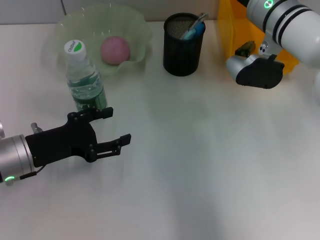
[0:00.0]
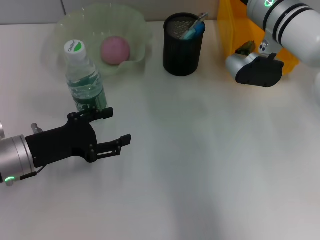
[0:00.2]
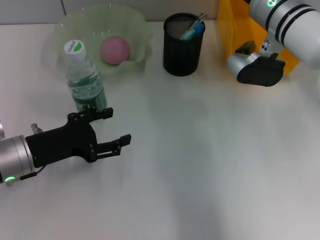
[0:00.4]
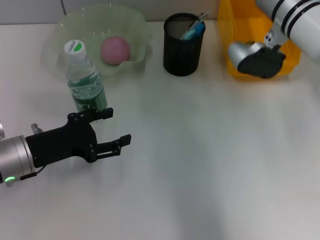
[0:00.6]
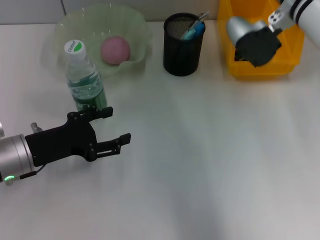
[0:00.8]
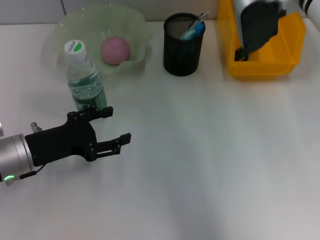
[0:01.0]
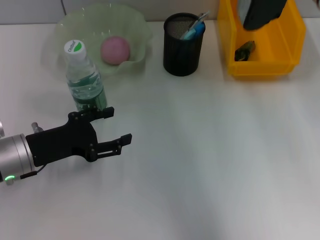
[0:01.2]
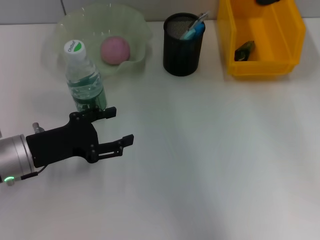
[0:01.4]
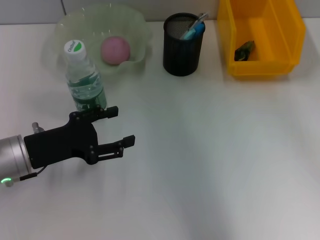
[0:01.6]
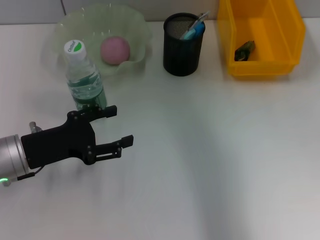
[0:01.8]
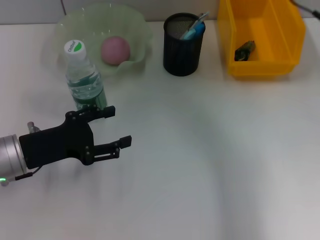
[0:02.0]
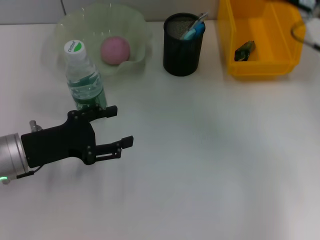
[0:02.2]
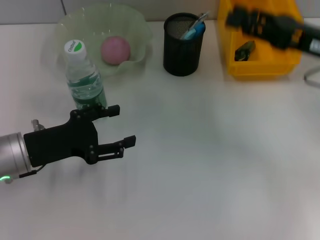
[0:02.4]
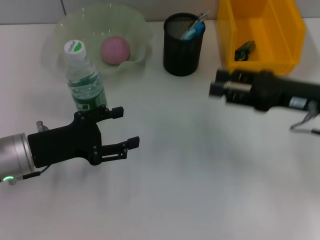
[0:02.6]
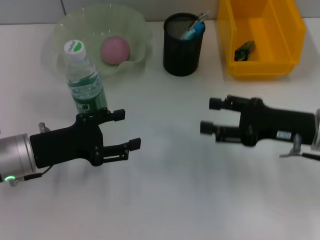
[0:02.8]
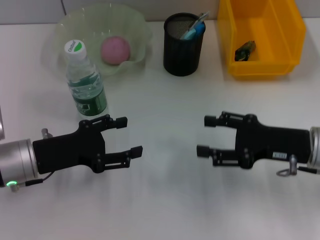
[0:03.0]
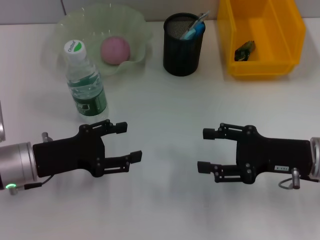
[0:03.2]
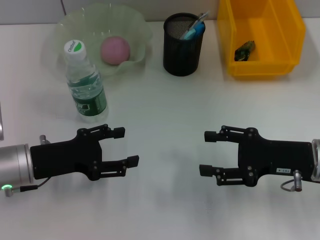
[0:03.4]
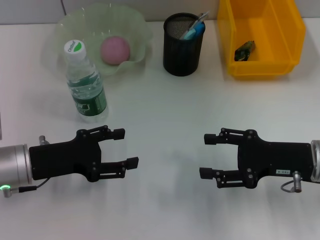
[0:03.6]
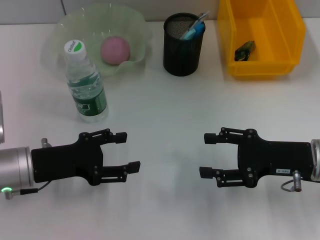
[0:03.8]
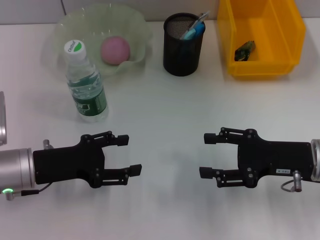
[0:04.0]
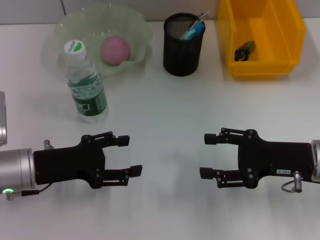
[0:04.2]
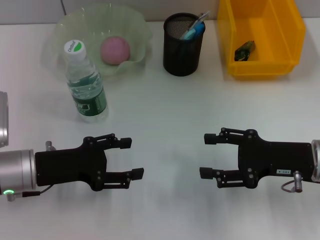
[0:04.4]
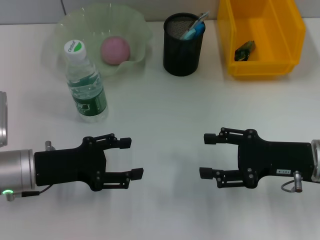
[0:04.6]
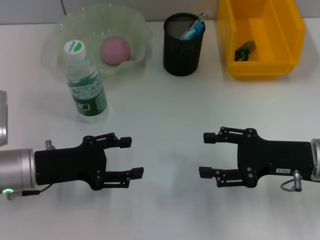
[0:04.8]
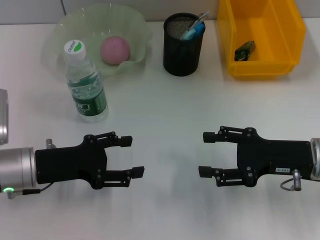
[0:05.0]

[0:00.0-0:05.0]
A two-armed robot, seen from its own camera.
0:00.0 to 0:01.6: The right gripper goes some 10 cm upward and to the right.
0:01.6 to 0:03.4: The right gripper goes roughly 20 cm downward and backward, and opens its fingers.
0:03.4 to 0:05.0: Both grippers stay about where they are.
